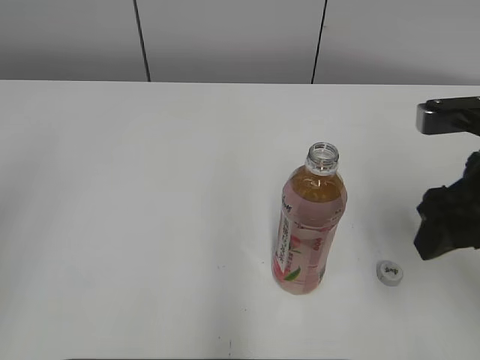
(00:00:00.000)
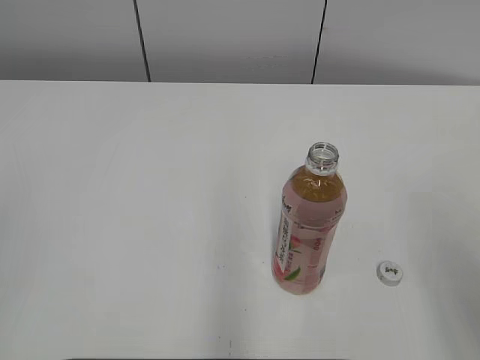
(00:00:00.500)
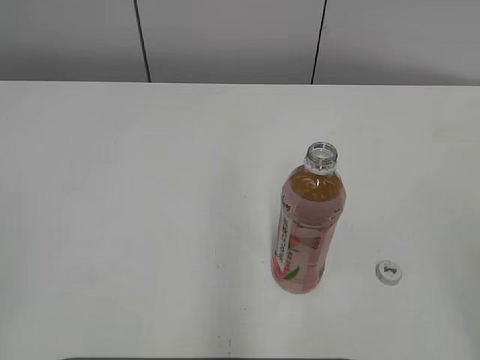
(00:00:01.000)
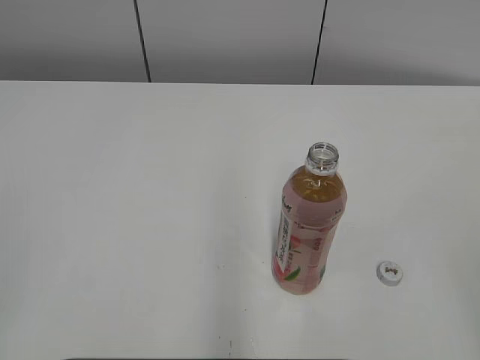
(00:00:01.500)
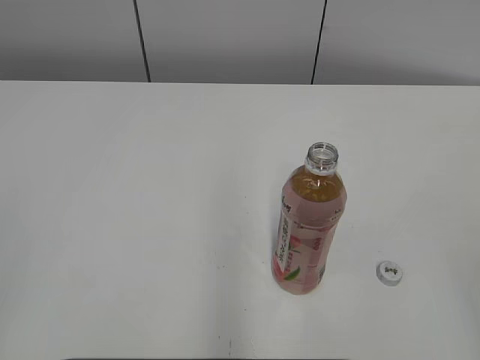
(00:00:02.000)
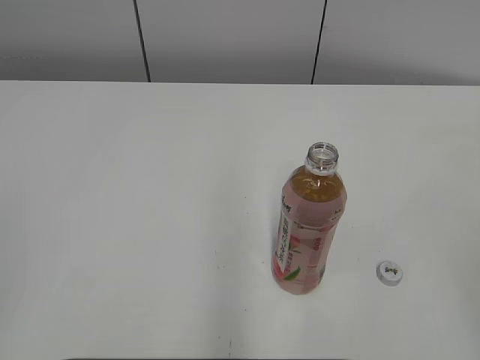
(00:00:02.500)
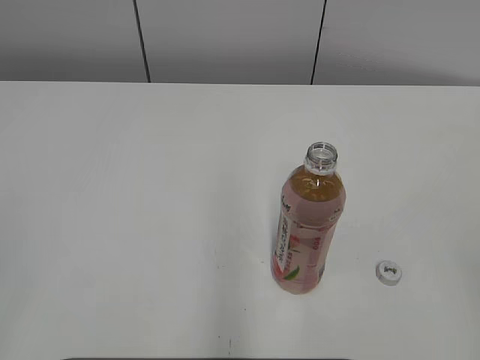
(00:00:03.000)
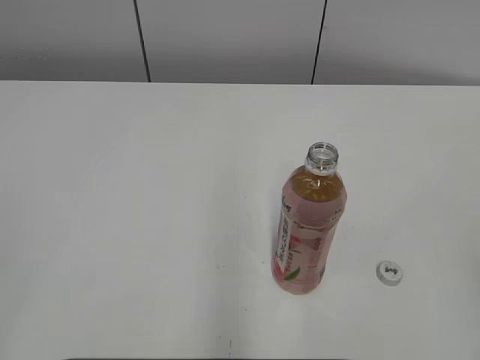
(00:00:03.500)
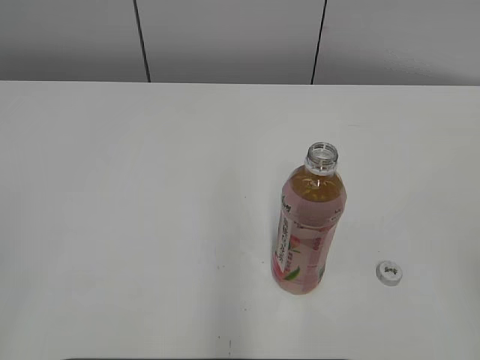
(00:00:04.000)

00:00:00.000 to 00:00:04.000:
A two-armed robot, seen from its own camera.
00:00:00.000 to 00:00:02.000: The right gripper moves backward, about 25 cm.
